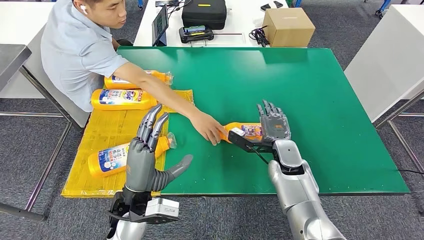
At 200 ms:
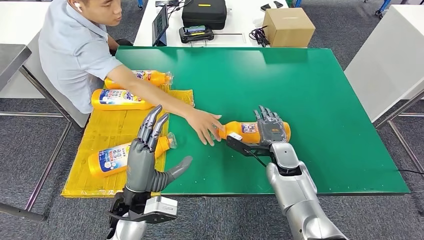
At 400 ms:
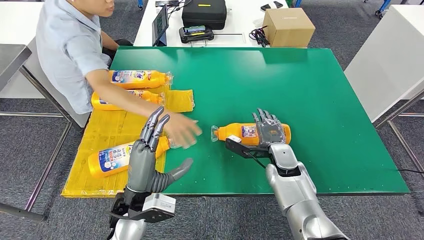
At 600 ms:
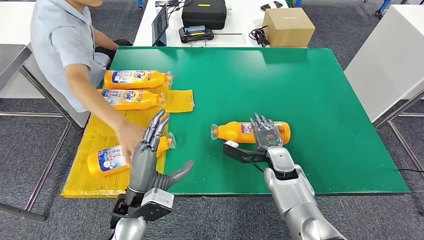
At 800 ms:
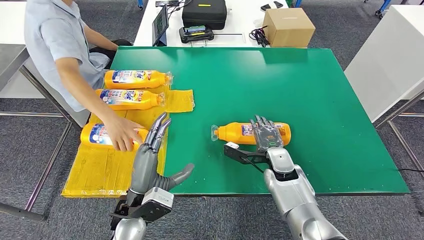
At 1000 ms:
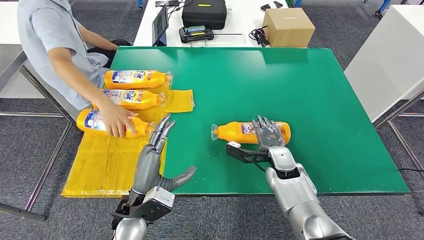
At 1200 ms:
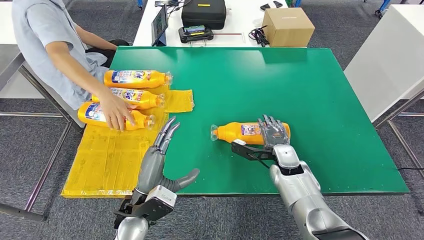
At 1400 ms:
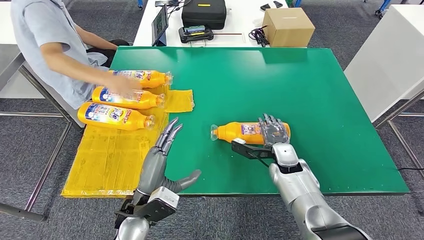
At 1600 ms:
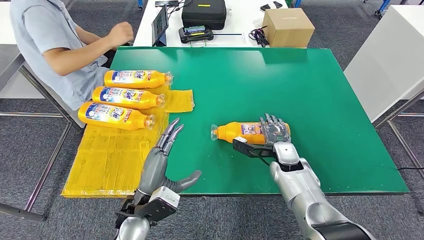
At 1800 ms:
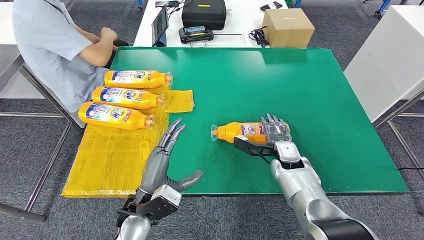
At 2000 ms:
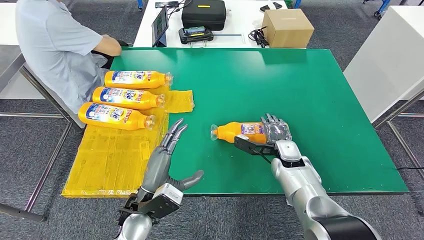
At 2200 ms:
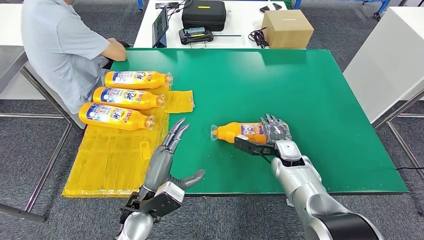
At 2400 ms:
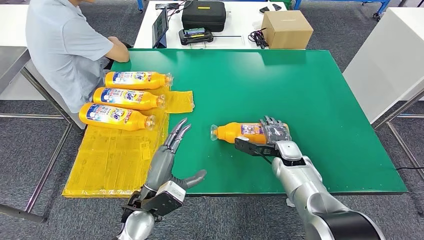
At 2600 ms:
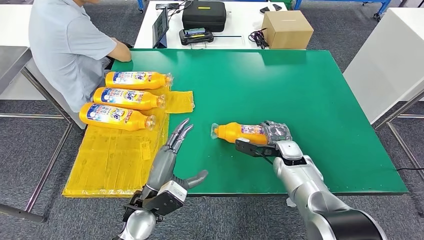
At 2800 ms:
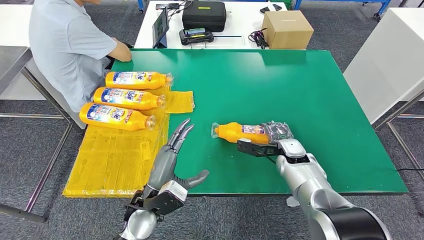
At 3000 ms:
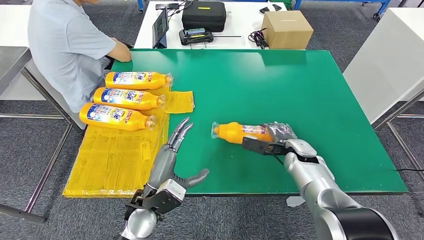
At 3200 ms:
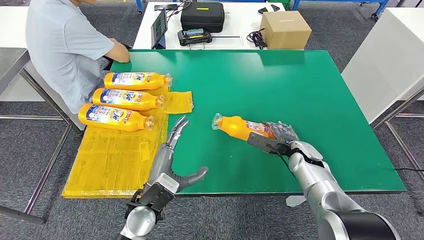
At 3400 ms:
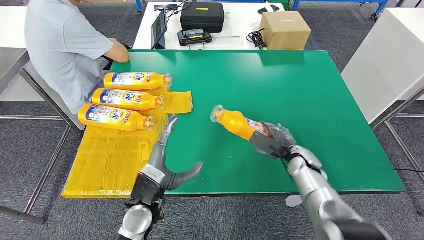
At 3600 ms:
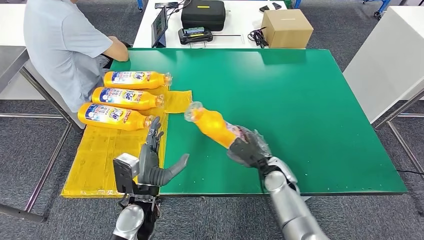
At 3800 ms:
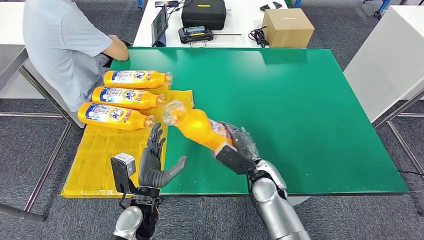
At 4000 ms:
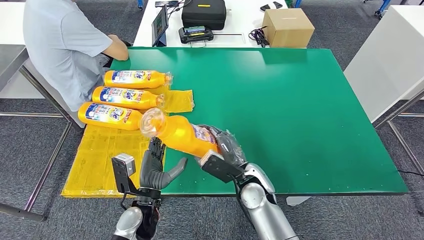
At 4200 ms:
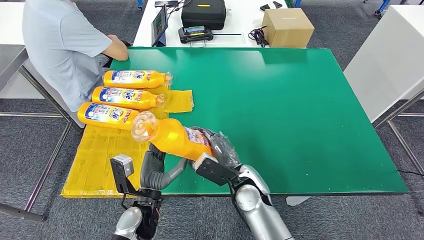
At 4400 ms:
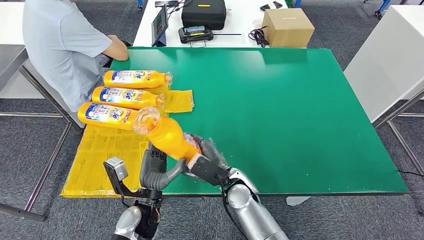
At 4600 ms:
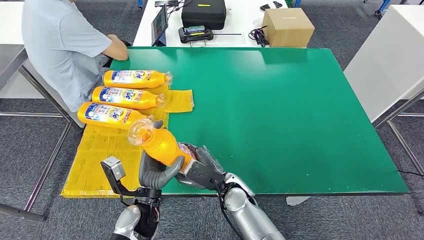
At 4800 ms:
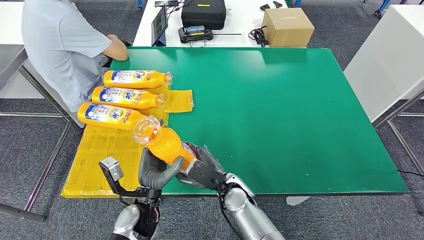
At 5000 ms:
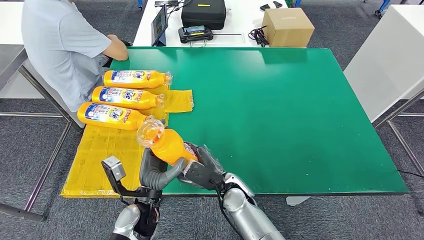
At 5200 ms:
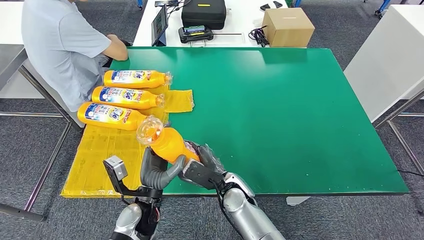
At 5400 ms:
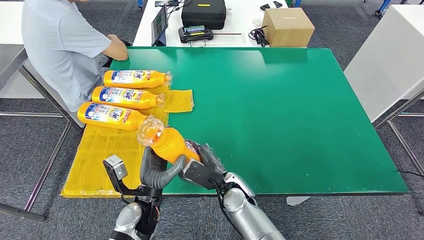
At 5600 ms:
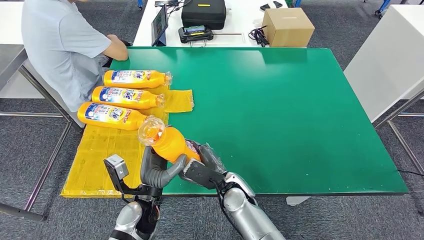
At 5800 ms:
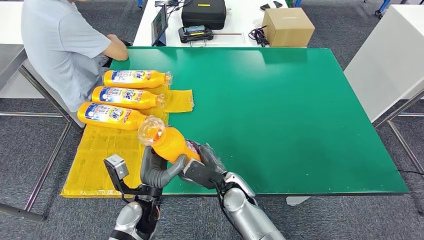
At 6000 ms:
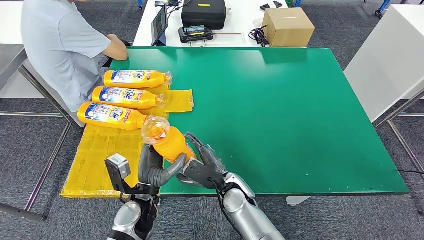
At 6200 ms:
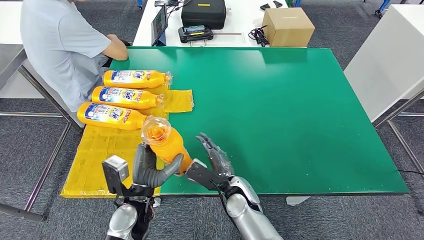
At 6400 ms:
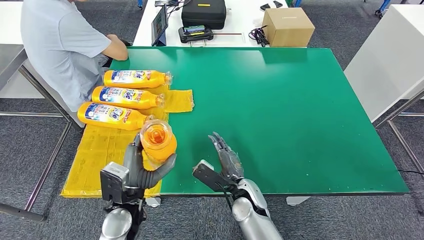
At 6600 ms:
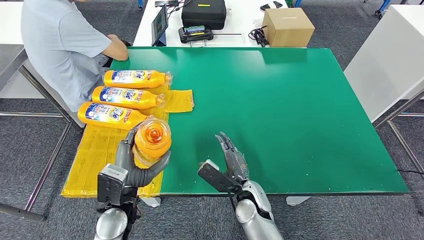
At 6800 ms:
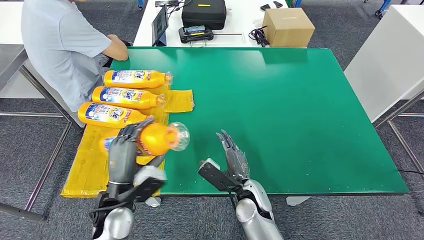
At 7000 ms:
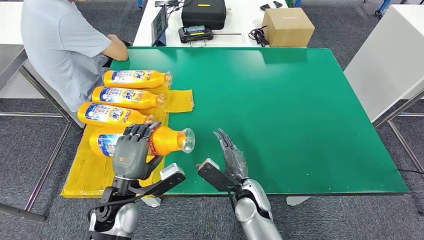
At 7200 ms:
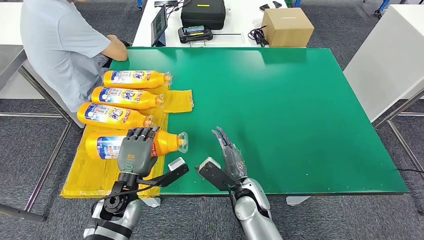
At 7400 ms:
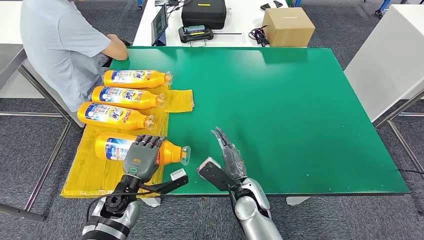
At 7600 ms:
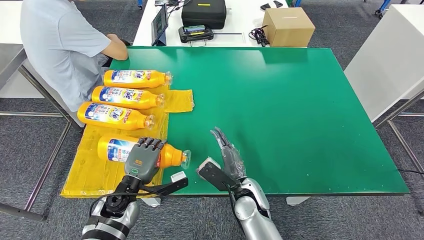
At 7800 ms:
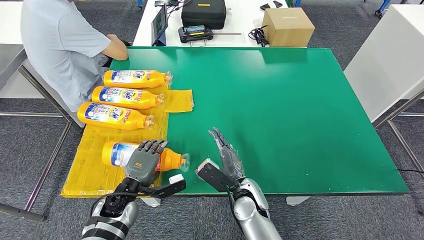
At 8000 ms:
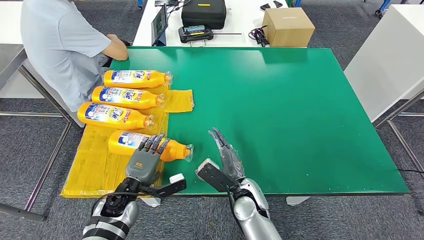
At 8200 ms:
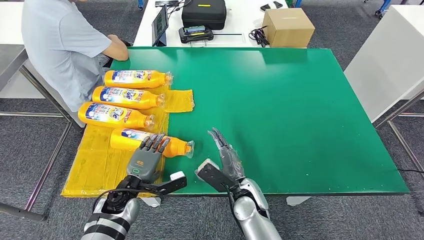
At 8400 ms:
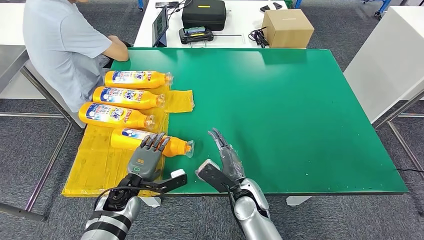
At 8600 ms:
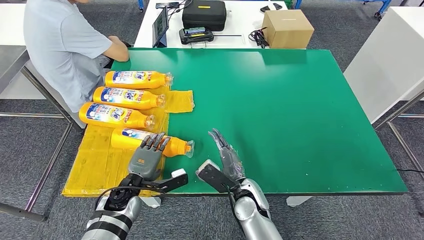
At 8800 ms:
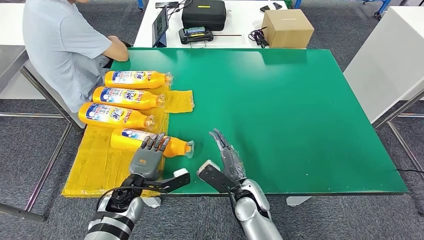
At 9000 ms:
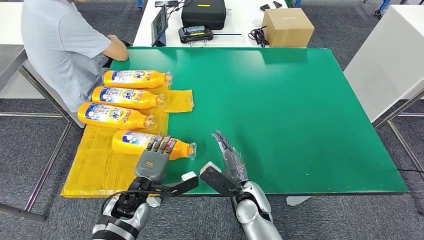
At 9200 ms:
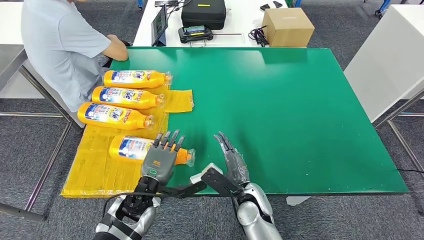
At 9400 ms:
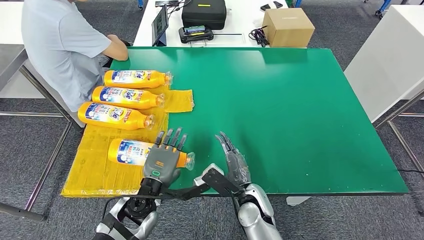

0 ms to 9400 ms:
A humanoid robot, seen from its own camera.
Step, 0 ms to 4800 ms: Pick up the bottle from the table.
Step, 5200 ms to 9400 ms: Flip the bottle to face forward.
6200 ms to 7800 ms: The left hand travels to the left and downward by about 10 cm.
7800 ms to 9400 ms: The left hand moves to the right and upward, roughly 10 cm.
